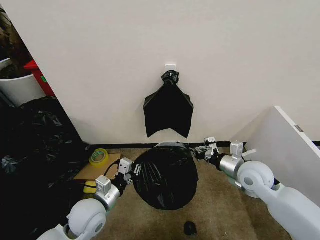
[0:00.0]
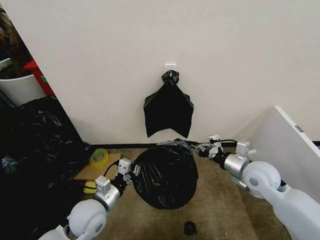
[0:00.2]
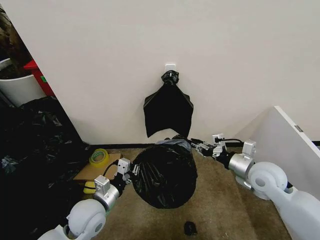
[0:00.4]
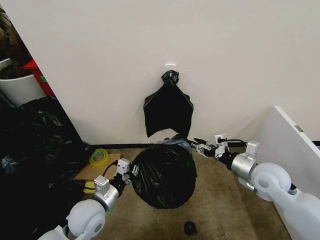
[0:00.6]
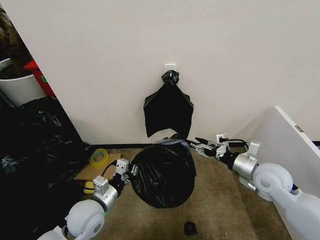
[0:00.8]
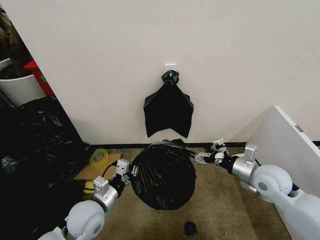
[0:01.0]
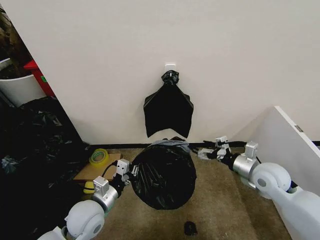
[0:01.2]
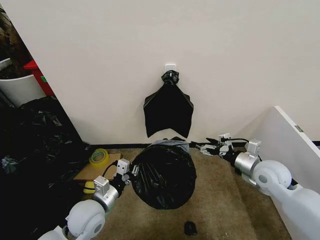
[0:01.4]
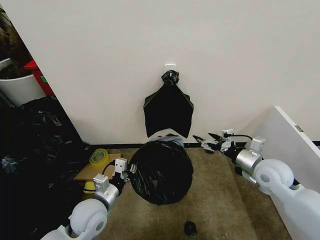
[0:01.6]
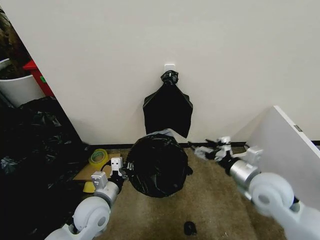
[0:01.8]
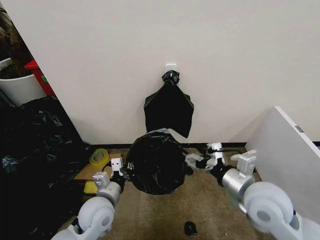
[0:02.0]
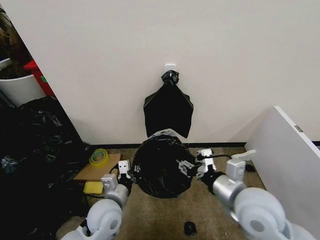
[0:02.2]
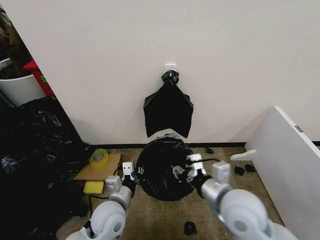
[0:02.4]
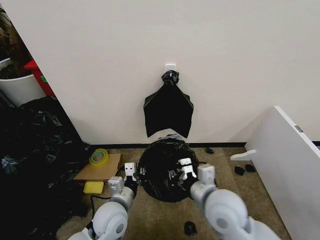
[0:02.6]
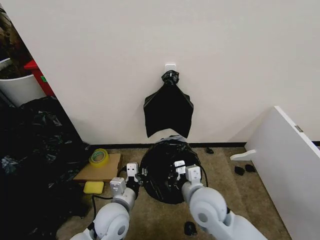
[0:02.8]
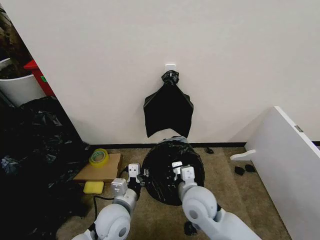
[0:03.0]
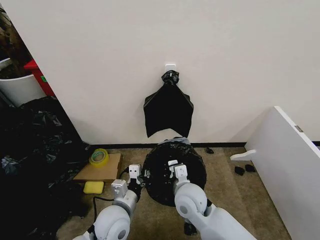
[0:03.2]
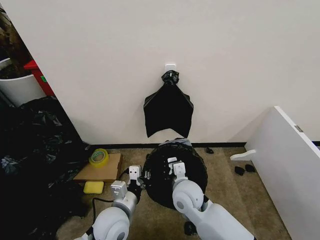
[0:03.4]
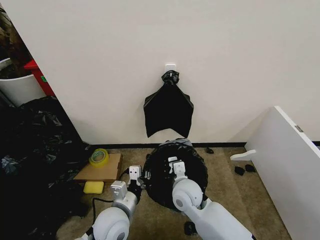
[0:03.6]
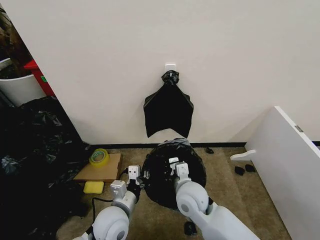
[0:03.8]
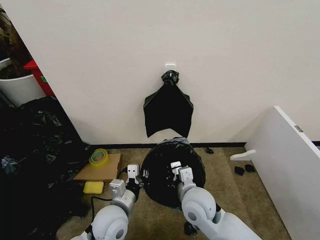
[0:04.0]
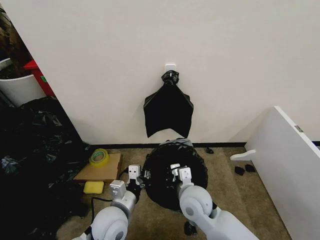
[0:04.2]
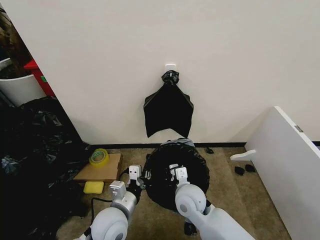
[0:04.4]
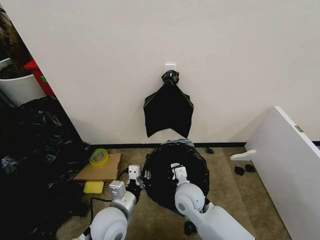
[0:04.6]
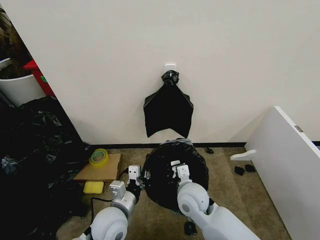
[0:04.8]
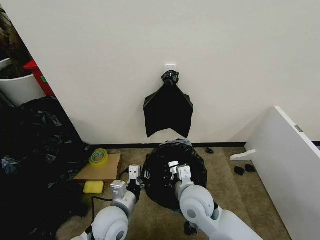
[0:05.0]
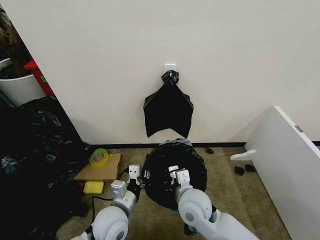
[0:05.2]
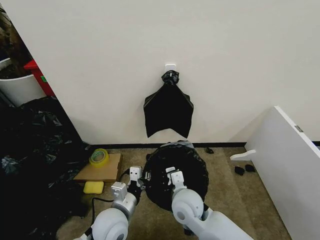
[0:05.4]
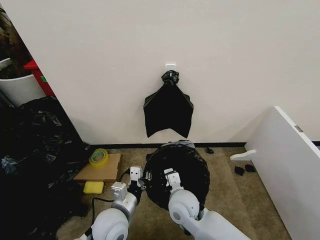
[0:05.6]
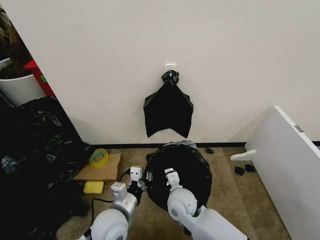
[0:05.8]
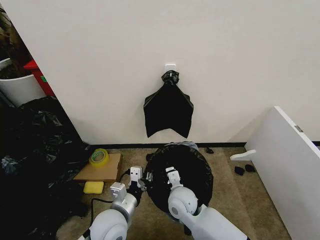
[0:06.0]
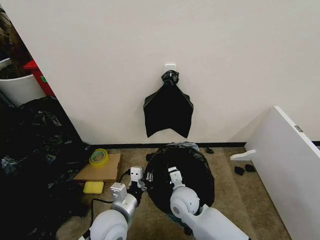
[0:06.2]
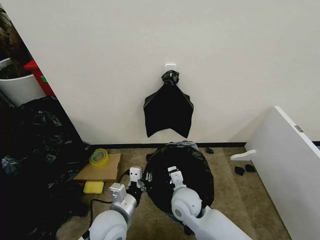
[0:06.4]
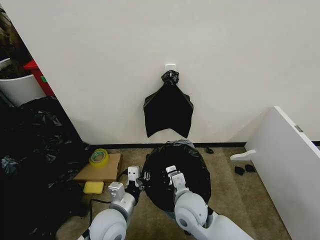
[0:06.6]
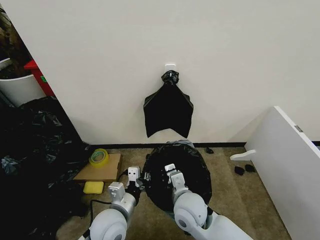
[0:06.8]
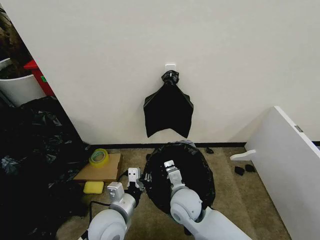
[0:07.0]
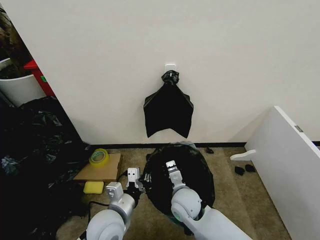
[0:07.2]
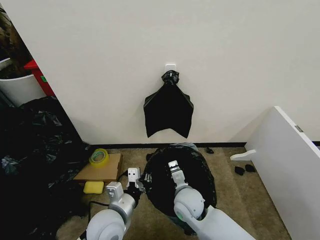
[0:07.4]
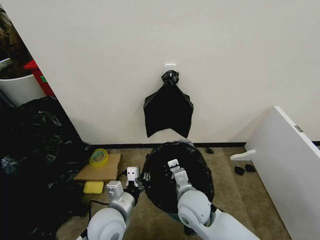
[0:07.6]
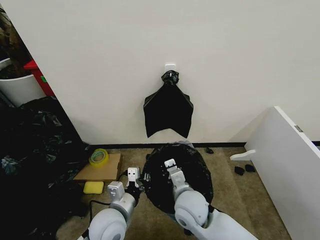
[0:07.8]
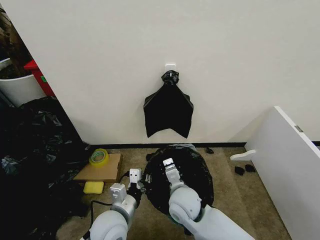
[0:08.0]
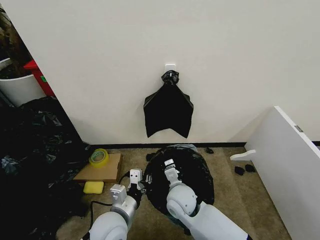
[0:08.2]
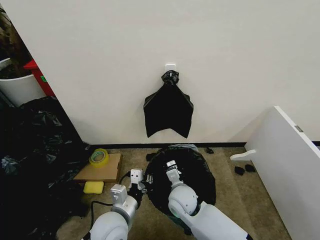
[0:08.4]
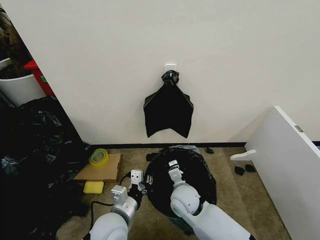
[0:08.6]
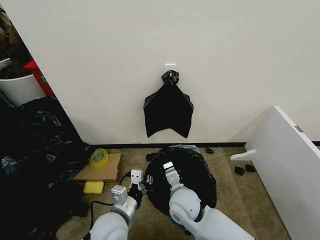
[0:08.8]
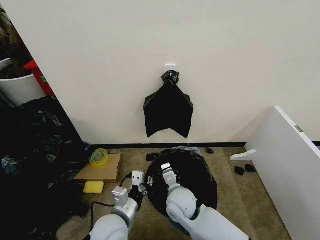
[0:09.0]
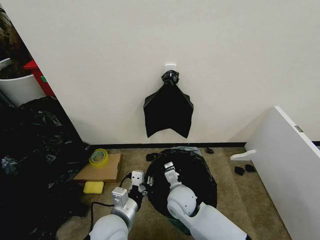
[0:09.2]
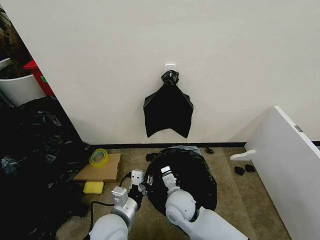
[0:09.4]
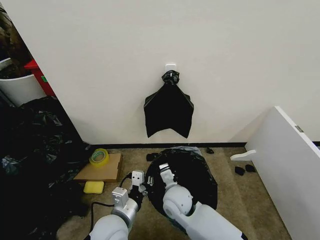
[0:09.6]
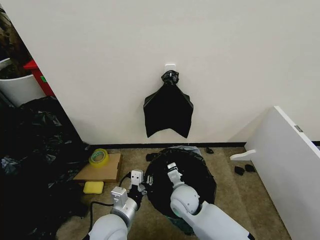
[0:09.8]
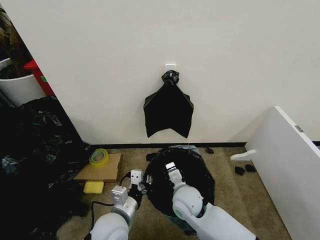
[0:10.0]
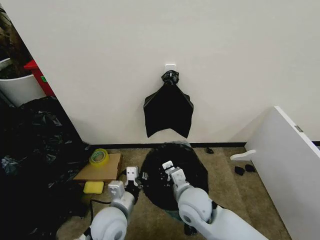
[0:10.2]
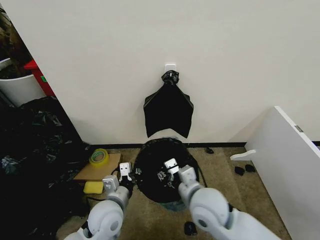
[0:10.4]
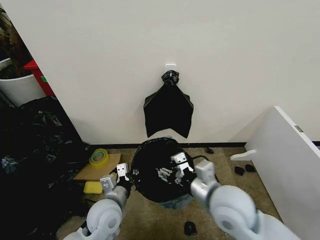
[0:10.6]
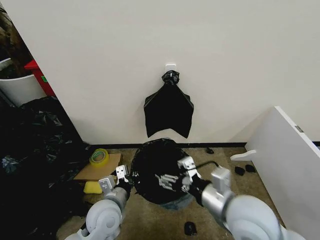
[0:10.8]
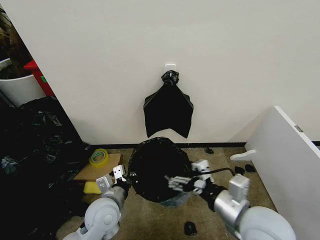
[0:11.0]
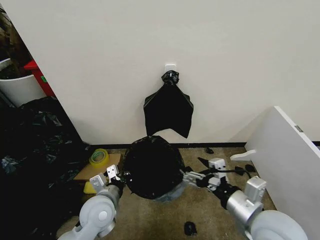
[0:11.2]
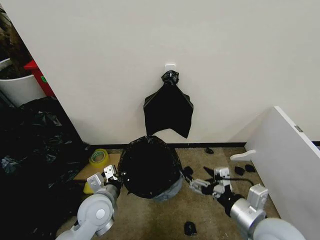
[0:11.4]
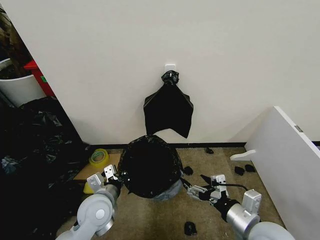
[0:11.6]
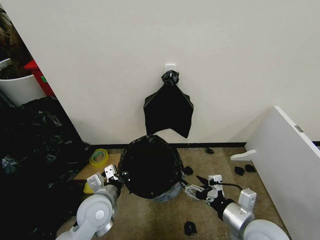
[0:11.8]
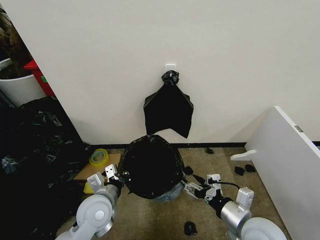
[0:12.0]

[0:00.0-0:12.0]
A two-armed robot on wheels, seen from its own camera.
Task of the whole recording: Place the garbage bag over the trash bin.
0:00.0 to 0:01.6: The right gripper opens its fingers.
0:01.6 to 0:03.0: The right gripper moves to the left, approximately 25 cm, and closes. Meanwhile the left gripper heads to the right, covering about 5 cm.
0:03.0 to 0:04.4: The grippers move only a little.
0:04.4 to 0:06.0: There are only small adjustments of the grippers.
0:06.0 to 0:07.6: The right gripper swings up and down, some 5 cm each way, with 2 reversals.
0:09.0 to 0:10.4: The right gripper goes approximately 10 cm upward and to the right, and opens its fingers.
0:10.4 to 0:12.0: The right gripper travels to the right and backward by some 15 cm, and opens its fingers.

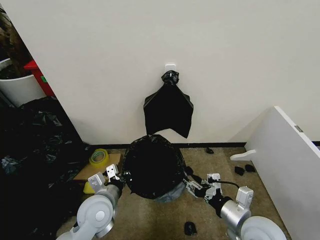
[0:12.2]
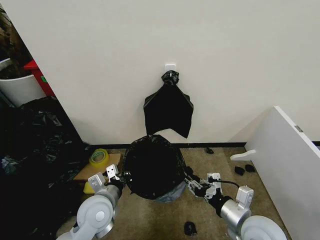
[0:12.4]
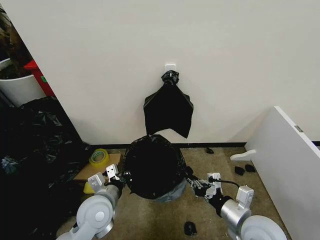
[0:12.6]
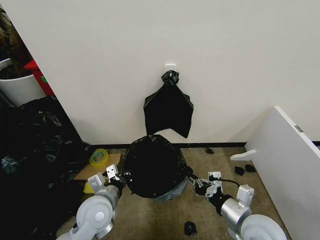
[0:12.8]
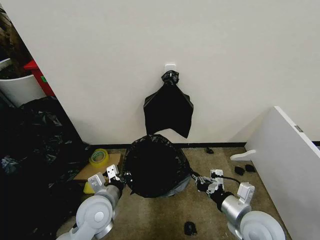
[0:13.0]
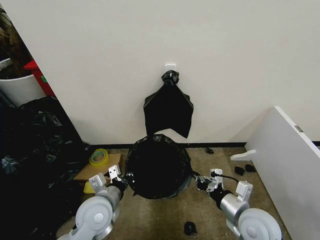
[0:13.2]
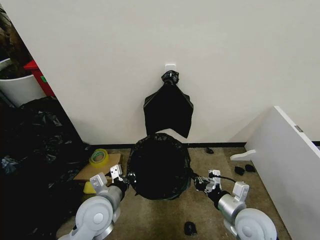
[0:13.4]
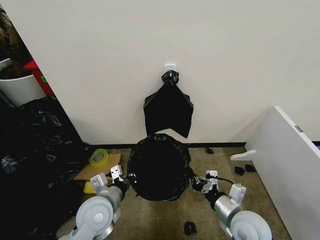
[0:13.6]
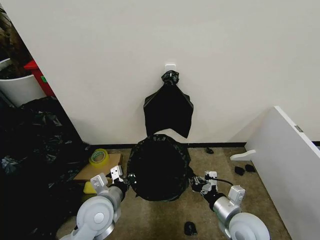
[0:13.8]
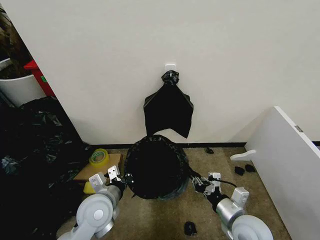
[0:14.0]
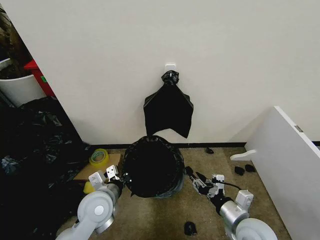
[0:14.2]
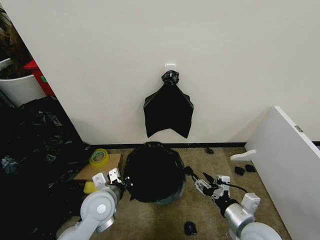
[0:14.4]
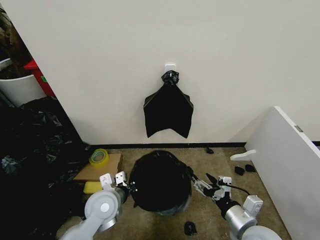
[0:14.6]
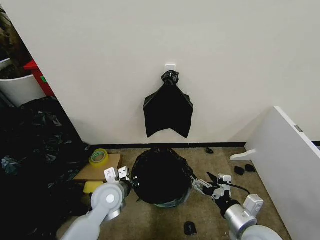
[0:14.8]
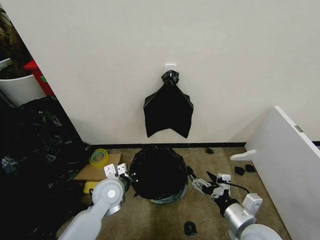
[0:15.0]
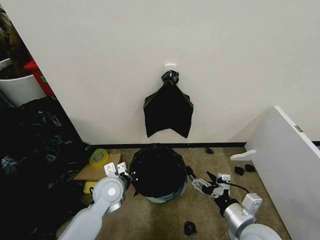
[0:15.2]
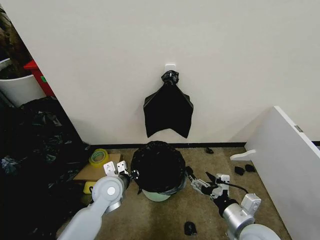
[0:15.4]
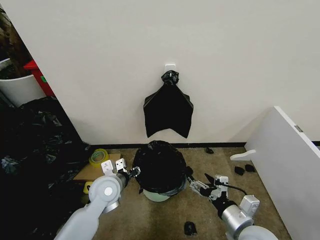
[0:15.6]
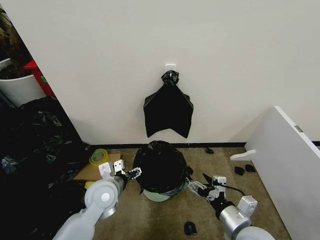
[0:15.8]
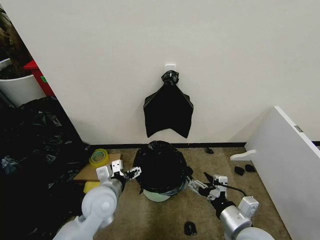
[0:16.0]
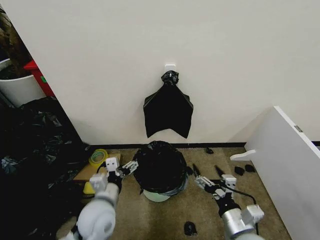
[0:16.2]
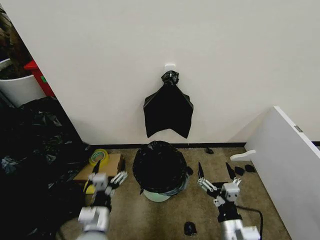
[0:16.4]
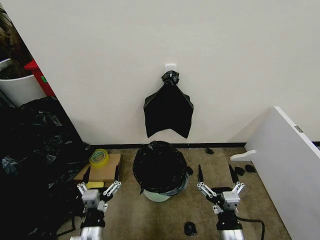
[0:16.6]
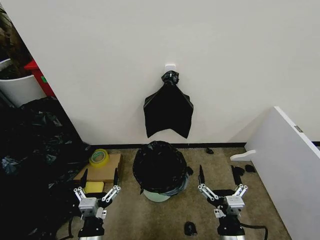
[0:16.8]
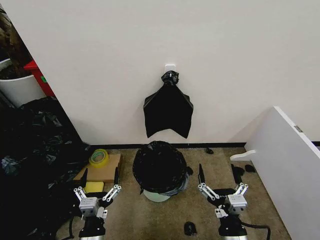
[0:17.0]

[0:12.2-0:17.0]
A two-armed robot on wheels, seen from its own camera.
Task of the whole recording: Place the garbage bag over the trash bin.
0:12.2 to 0:13.8: The right gripper closes up.
0:13.8 to 0:15.4: The right gripper opens its fingers, while the left gripper heads forward, covering roughly 10 cm.
0:15.4 to 0:17.0: The left gripper goes about 20 cm backward, and opens. Meanwhile the right gripper travels backward and to the left by approximately 10 cm.
